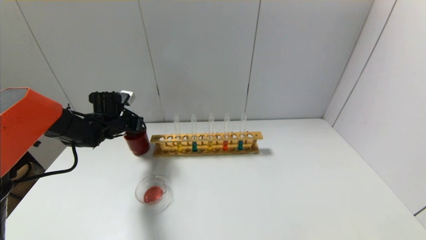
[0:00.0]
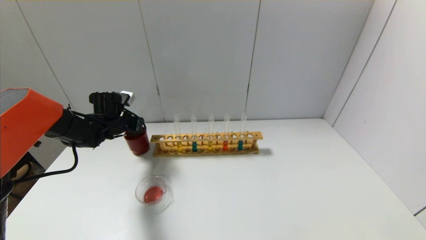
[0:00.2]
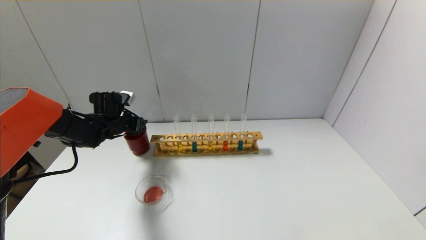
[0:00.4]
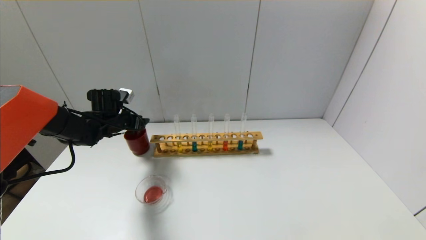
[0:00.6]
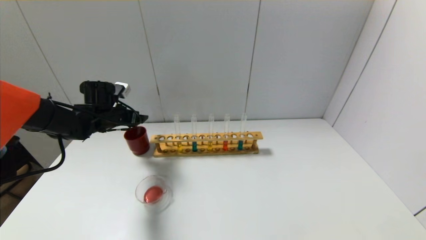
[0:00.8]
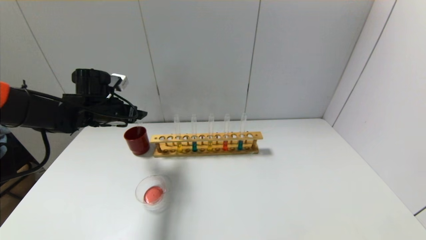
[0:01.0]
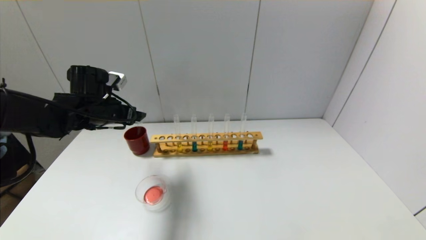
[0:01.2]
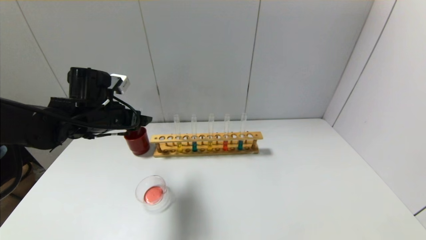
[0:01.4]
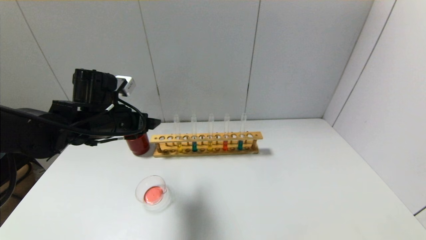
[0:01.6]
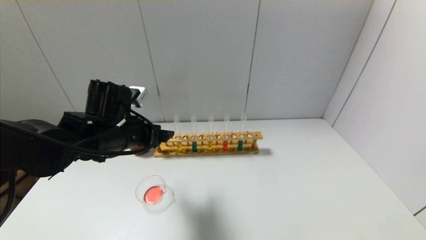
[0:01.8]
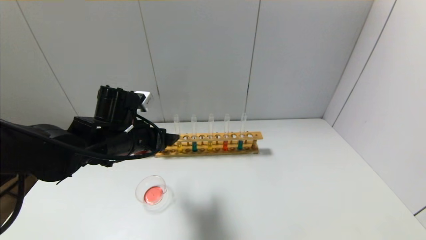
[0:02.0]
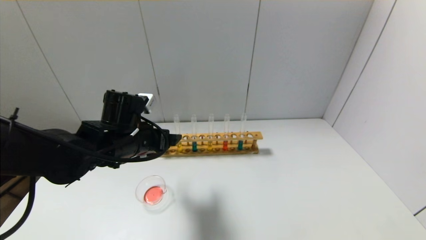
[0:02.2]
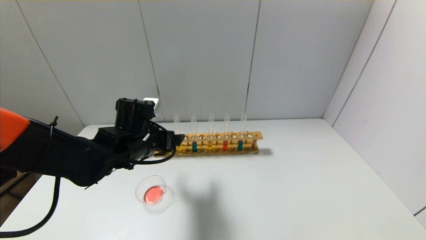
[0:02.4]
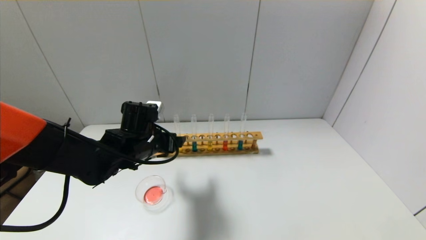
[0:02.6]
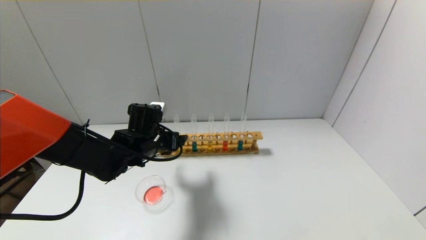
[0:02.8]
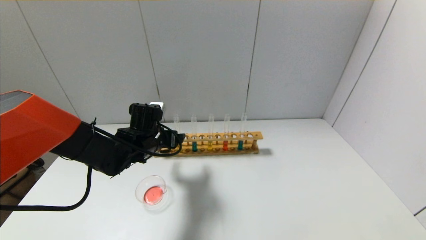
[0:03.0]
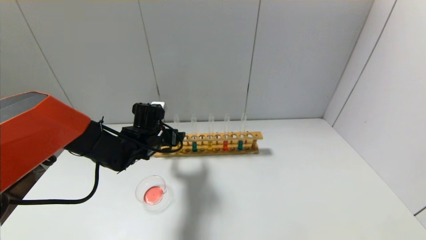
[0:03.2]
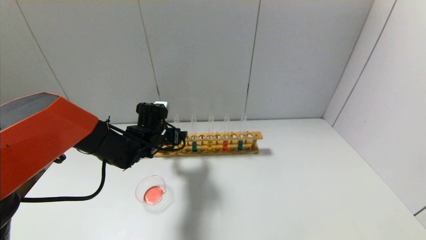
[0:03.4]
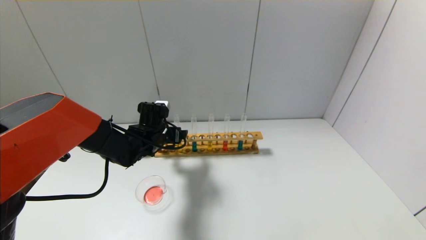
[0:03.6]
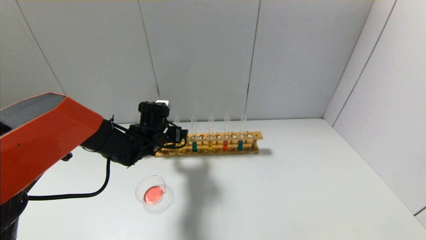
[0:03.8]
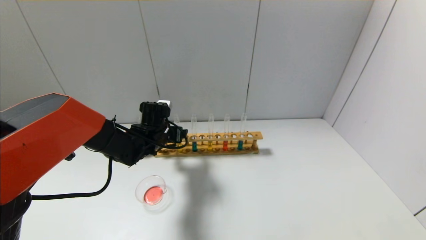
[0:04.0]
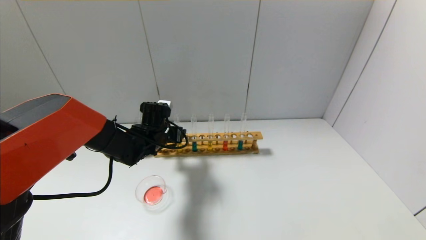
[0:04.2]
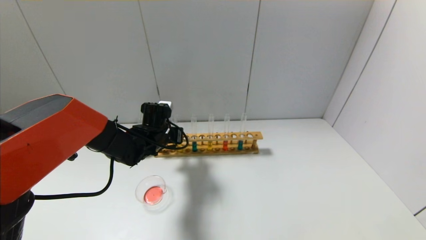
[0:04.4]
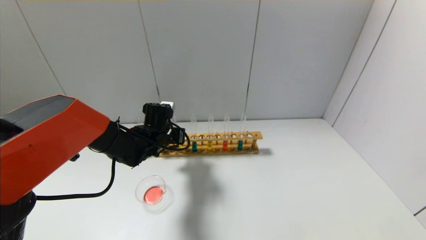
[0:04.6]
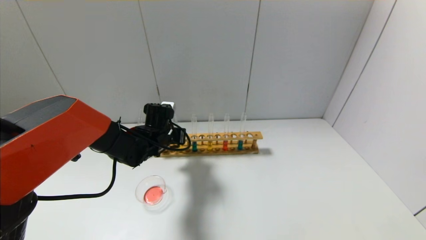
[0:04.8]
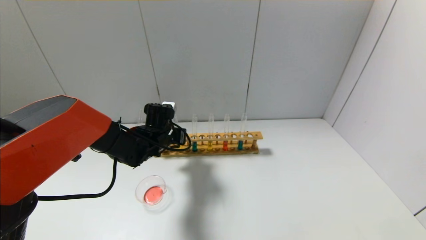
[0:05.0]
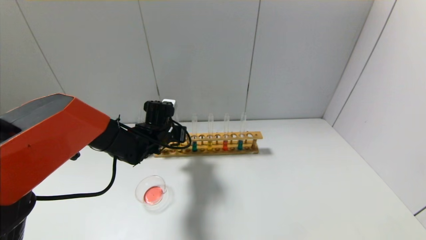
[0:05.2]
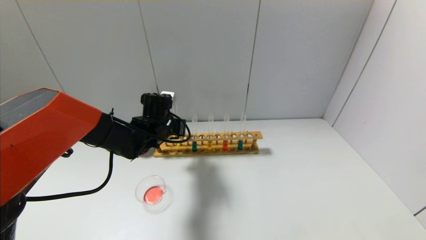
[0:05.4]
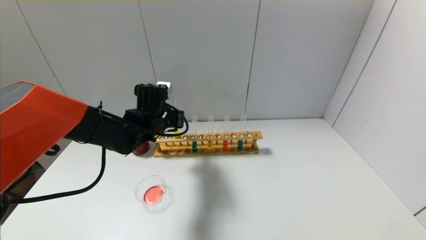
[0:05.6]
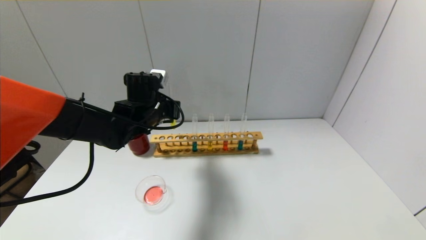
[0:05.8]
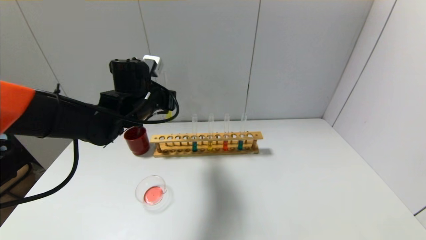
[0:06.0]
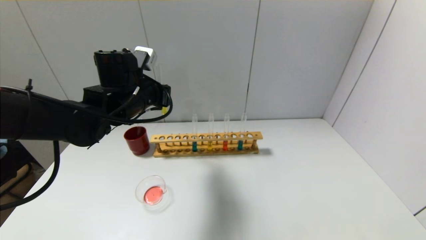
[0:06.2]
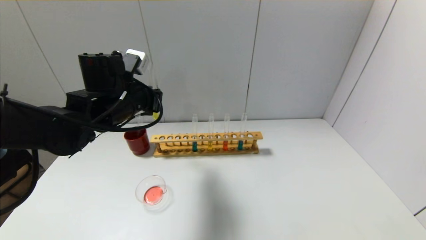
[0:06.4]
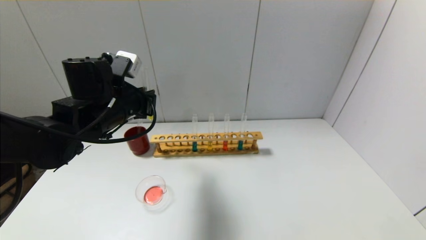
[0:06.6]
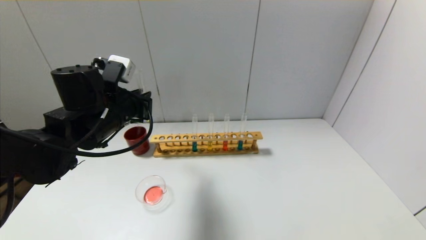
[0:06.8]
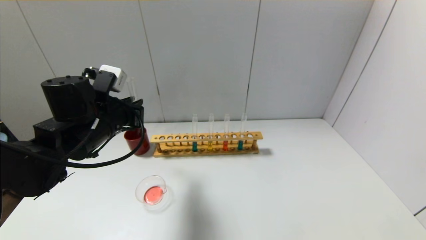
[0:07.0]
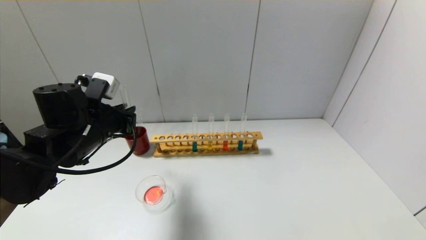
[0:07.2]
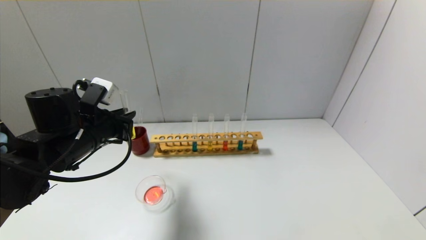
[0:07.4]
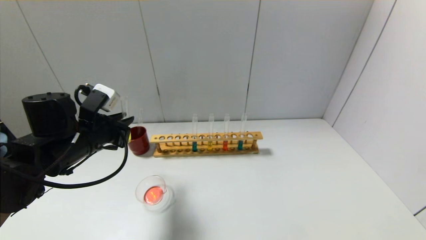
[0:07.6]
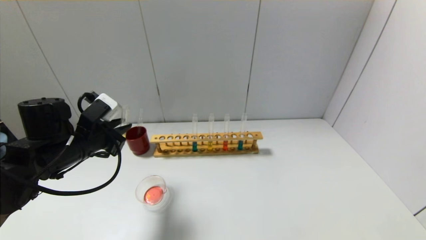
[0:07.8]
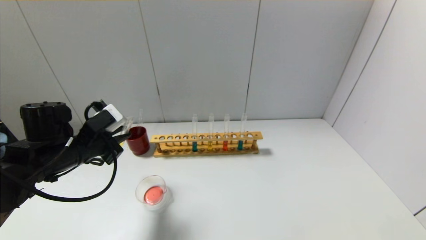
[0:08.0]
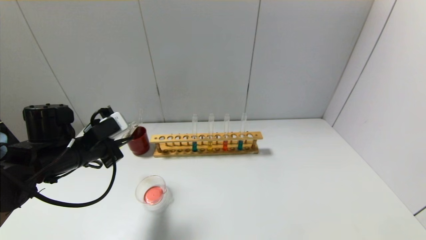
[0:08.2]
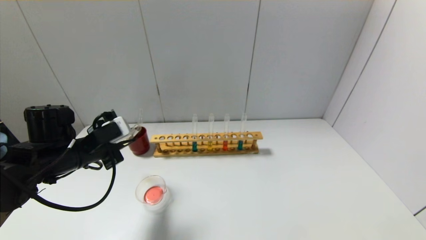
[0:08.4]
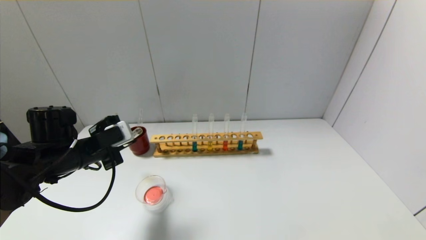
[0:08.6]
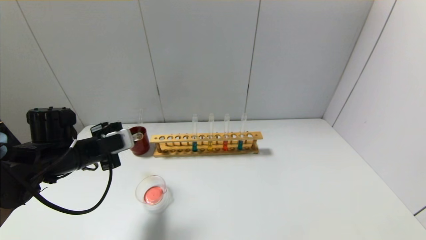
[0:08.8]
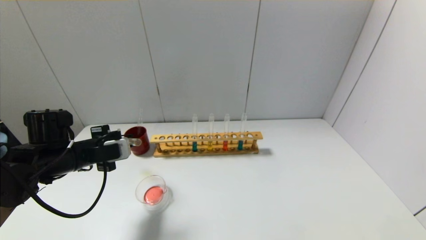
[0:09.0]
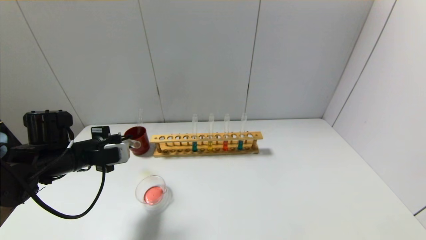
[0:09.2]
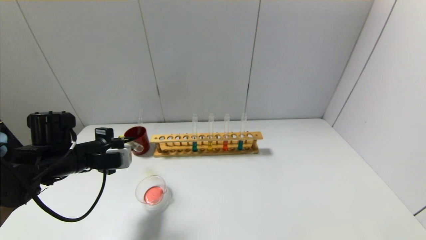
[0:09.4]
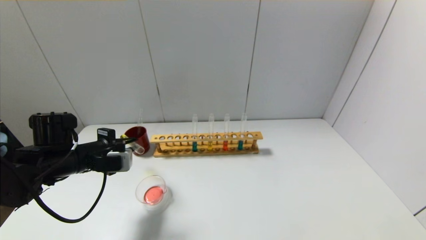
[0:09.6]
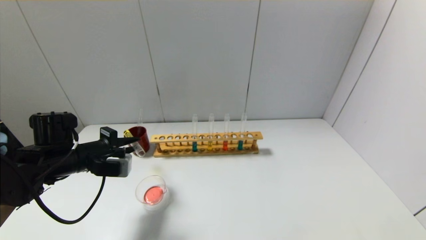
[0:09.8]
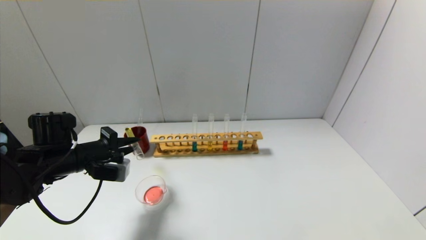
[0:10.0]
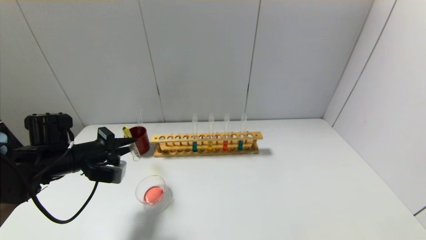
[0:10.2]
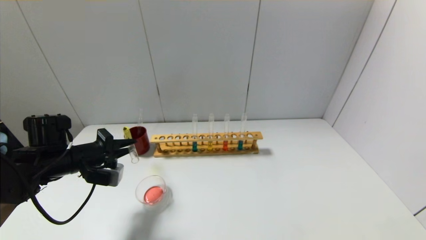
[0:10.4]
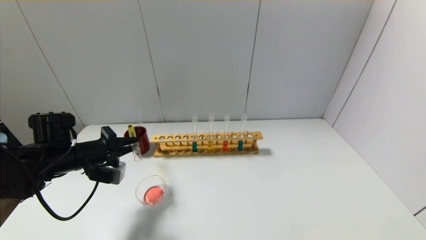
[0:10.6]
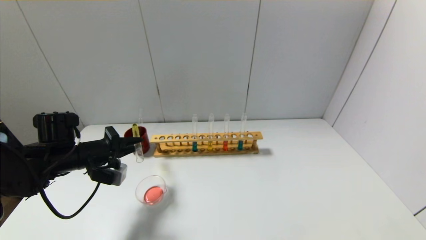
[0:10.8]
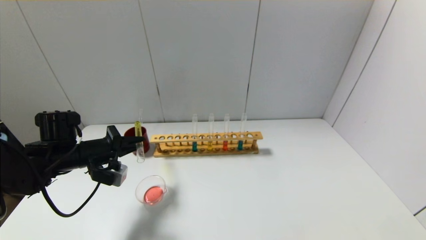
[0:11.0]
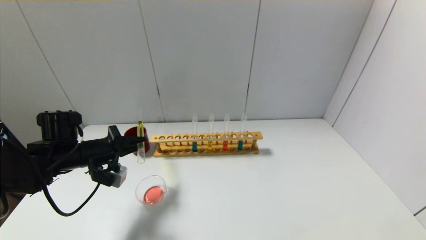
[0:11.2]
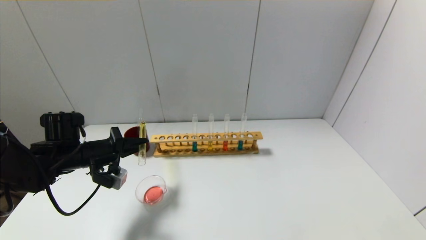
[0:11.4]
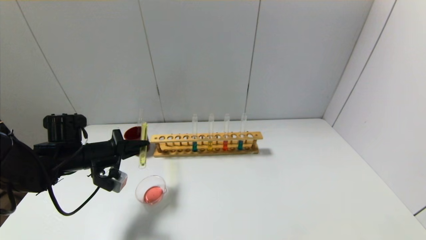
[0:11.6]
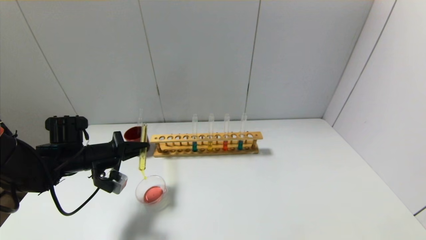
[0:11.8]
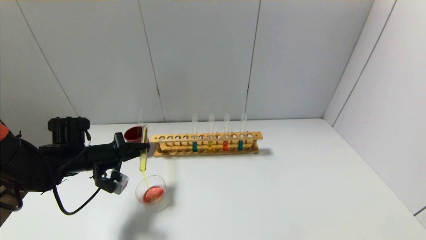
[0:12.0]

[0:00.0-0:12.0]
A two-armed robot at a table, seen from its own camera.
Step, 0:00.4 to 0:04.6: Grasp the yellow reagent with the left gripper.
0:00.0 to 0:01.6: The left gripper is displaced backward, upward and to the right by about 20 cm, and opens.
0:01.6 to 0:03.0: The left gripper goes about 10 cm downward and forward.
0:03.0 to 0:04.4: The left gripper closes up.
0:04.4 to 0:06.0: The left gripper goes about 10 cm upward.
0:06.0 to 0:07.6: The left gripper shifts roughly 15 cm to the left and backward.
0:07.6 to 0:09.0: The left gripper ends up about 5 cm from where it was.
0:10.4 to 0:12.0: The grippers make only small movements.

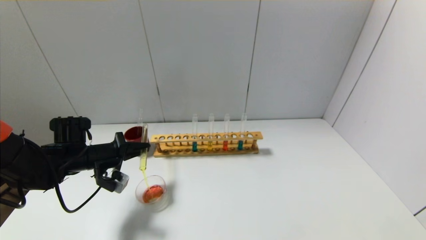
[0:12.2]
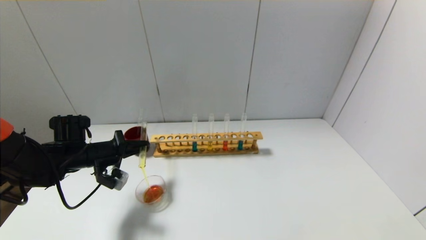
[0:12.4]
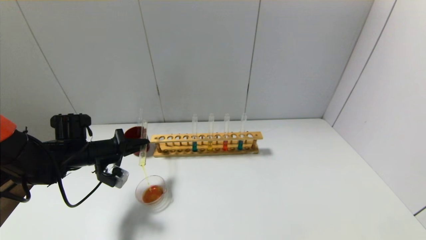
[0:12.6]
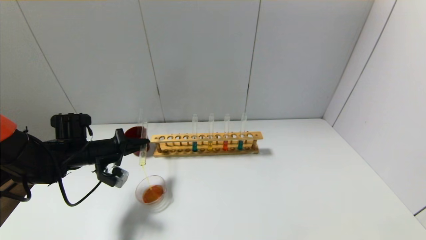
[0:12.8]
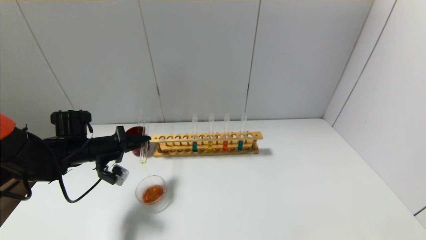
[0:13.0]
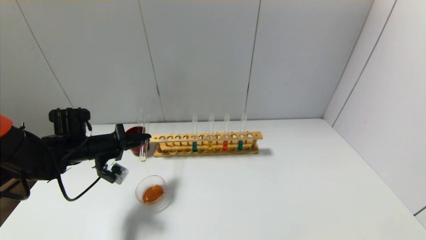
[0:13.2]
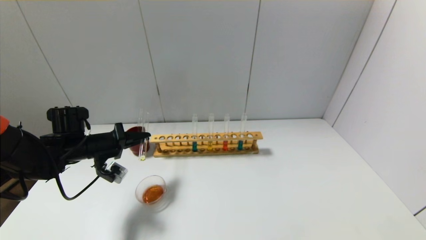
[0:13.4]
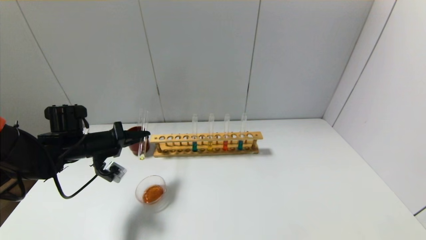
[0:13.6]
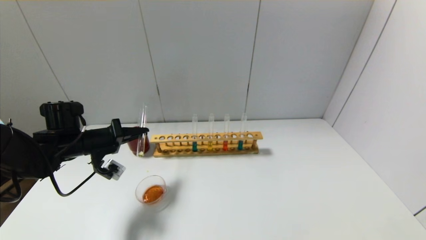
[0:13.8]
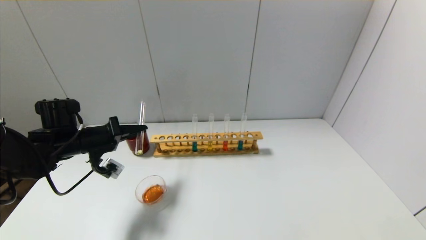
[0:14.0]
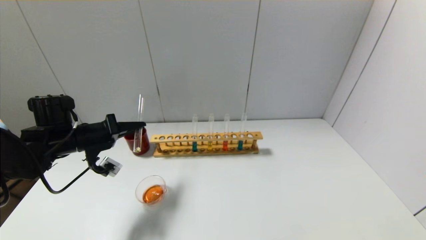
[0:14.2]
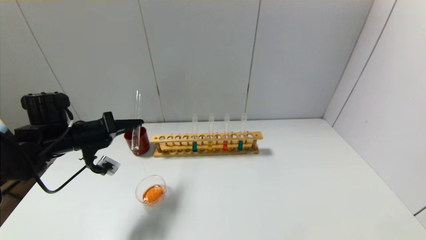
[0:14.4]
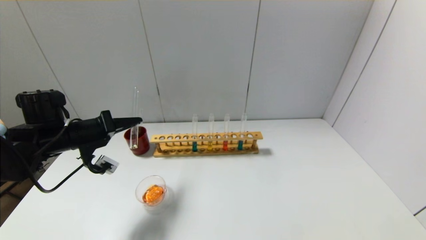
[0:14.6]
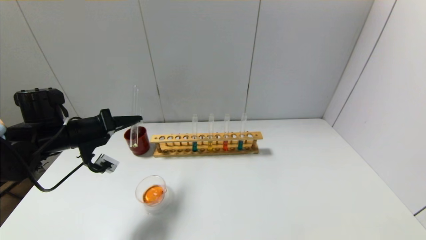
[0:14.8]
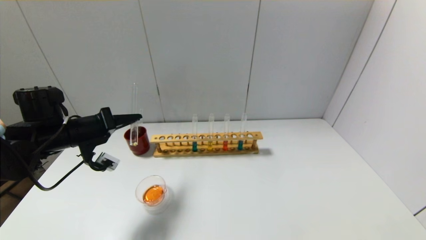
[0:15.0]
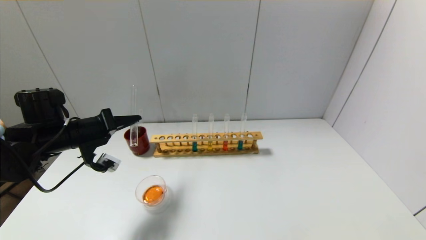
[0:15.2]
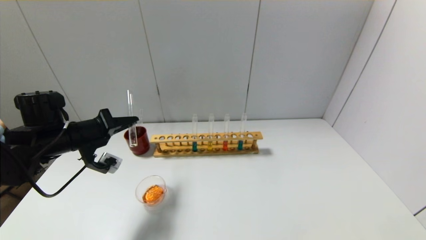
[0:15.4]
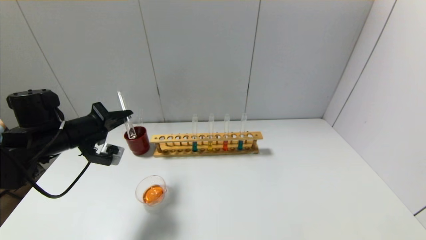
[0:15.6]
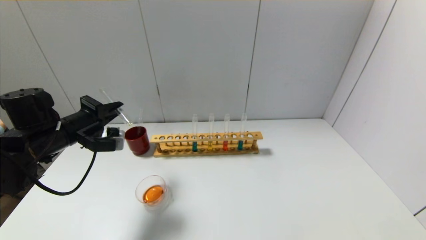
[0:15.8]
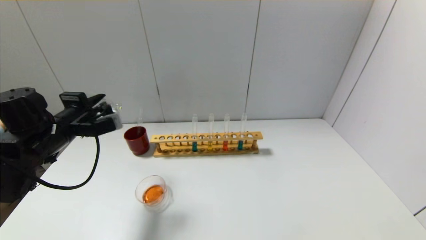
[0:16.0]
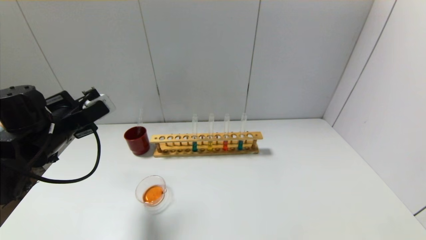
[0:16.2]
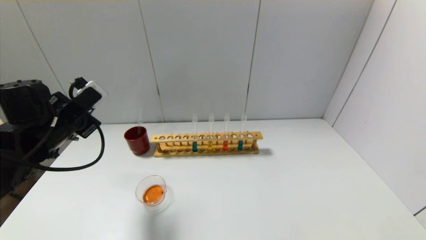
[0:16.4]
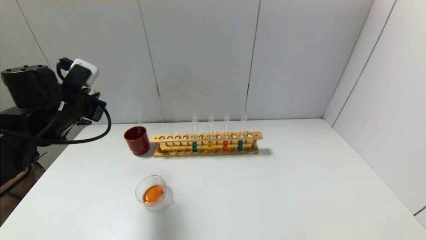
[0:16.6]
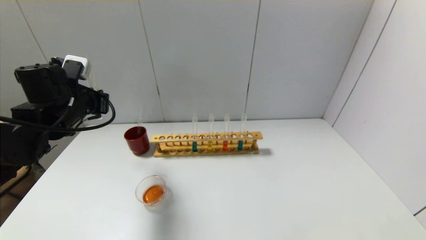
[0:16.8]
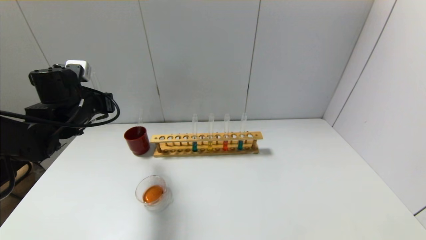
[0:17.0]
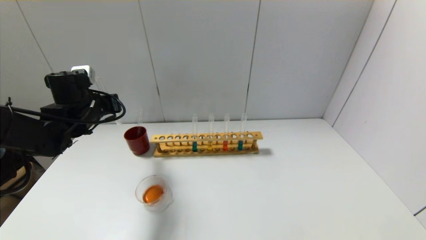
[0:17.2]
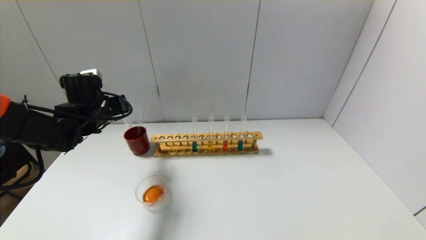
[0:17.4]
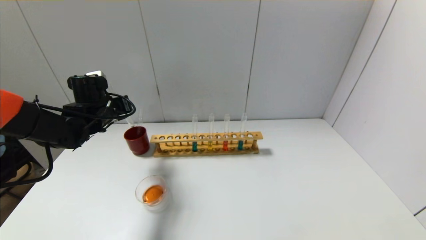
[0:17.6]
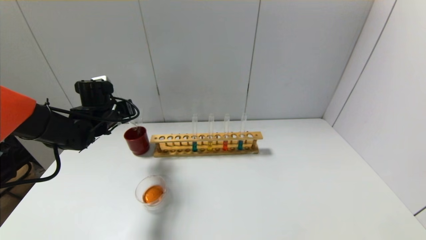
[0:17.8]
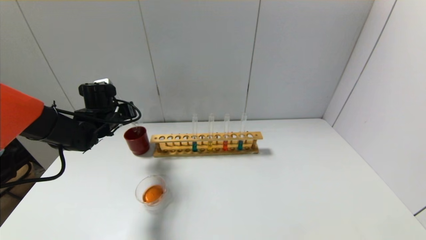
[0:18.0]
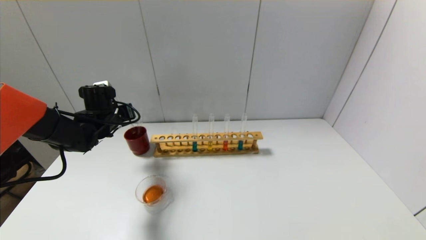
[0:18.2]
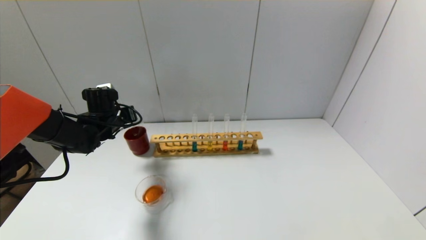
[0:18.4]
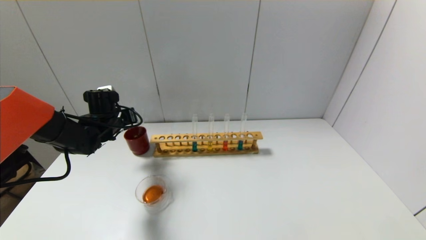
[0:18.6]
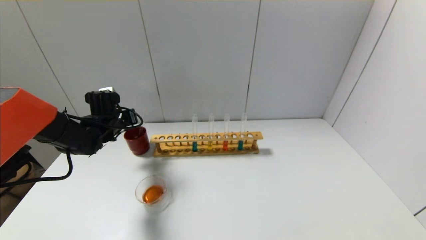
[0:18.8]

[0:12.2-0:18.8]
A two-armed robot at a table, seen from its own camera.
Step, 0:12.2 to 0:15.4: Pour the yellow reagent into the graduated cylinder with the left gripper.
0:12.2 to 0:13.8: The grippers stay close to where they were, moving slightly.
0:13.8 to 0:15.4: The grippers move only a little.
0:15.4 to 0:17.2: The left gripper shifts roughly 5 cm forward.
0:17.2 to 0:18.8: The left gripper goes approximately 10 cm downward and forward.
